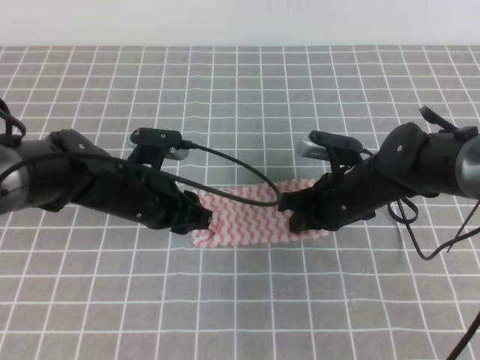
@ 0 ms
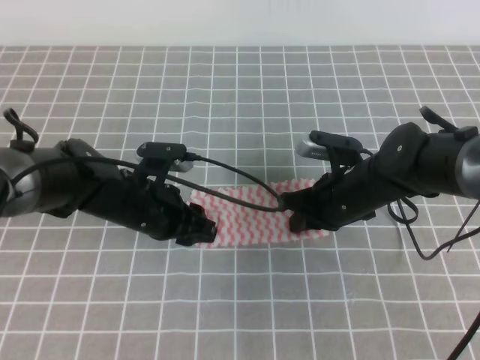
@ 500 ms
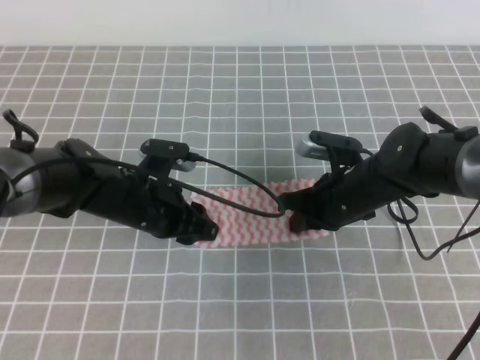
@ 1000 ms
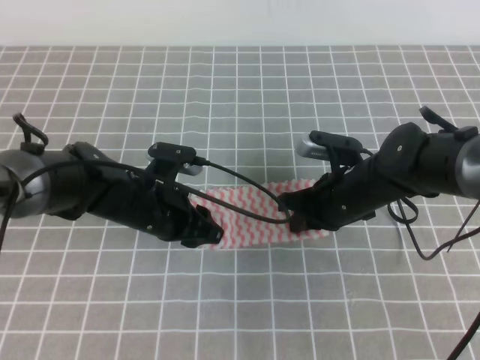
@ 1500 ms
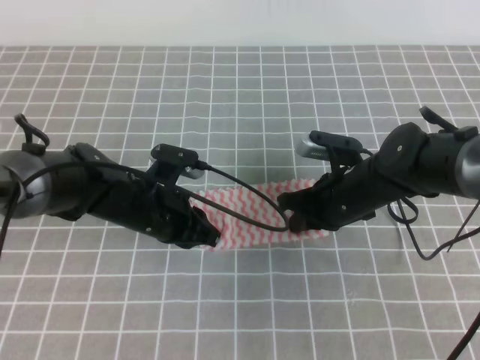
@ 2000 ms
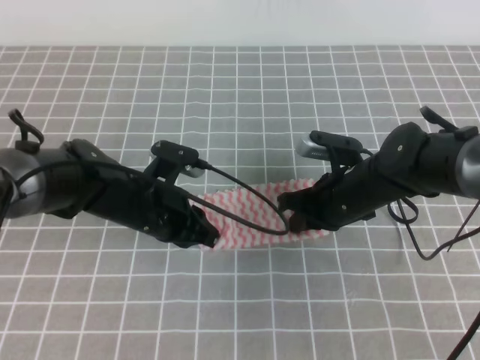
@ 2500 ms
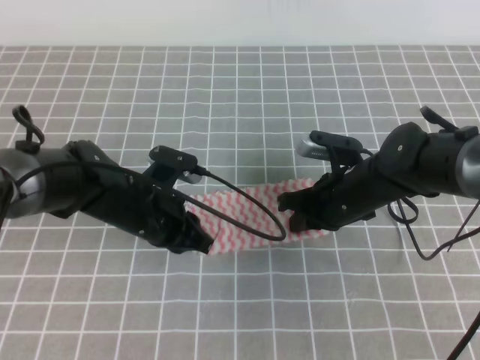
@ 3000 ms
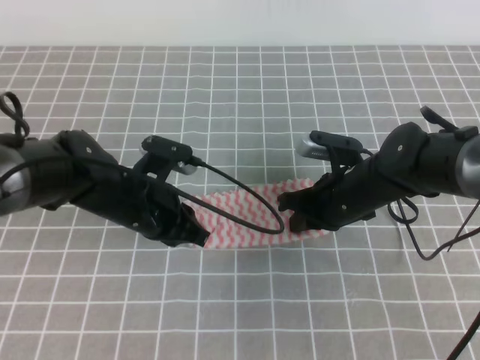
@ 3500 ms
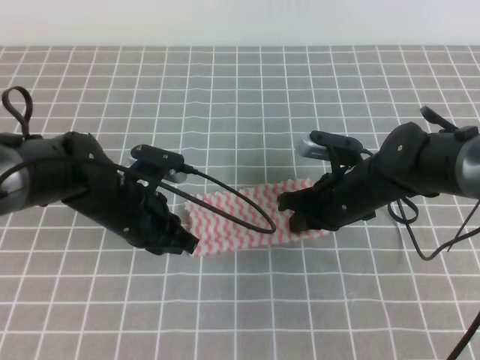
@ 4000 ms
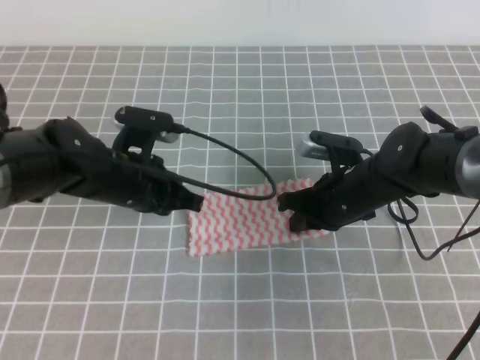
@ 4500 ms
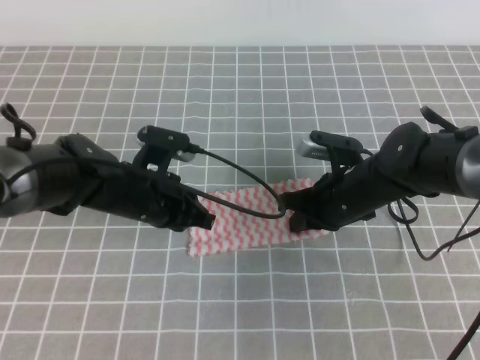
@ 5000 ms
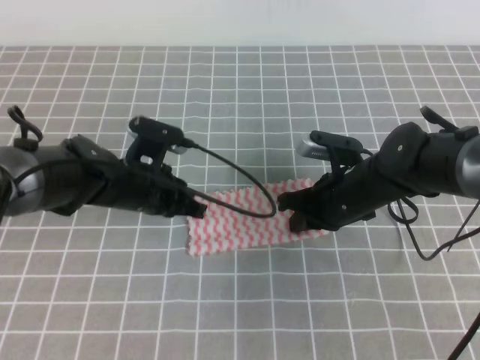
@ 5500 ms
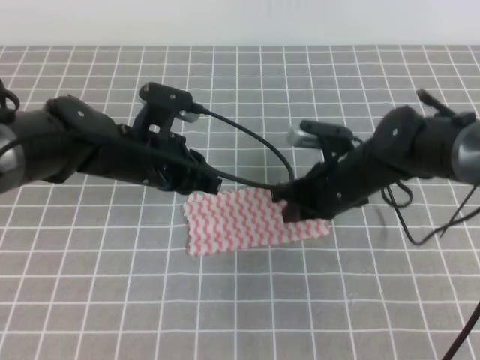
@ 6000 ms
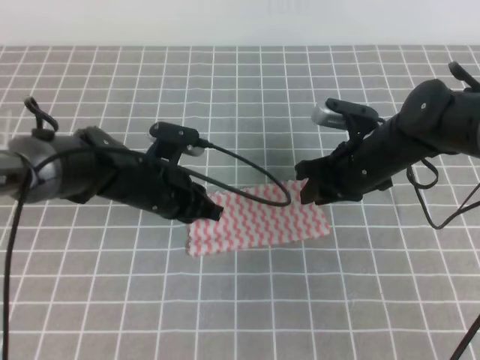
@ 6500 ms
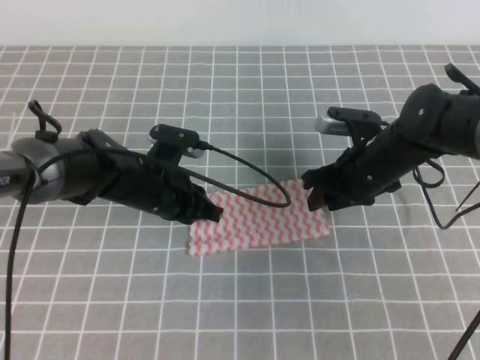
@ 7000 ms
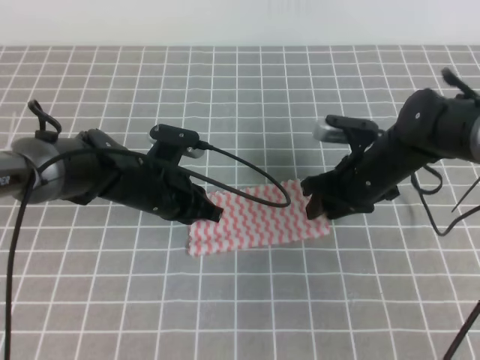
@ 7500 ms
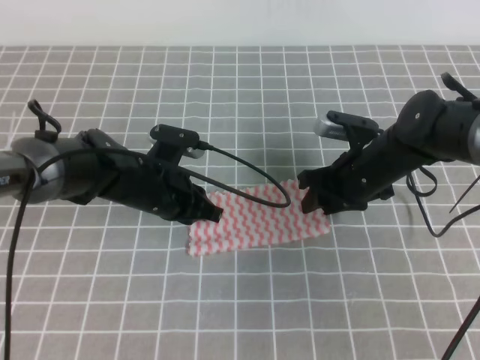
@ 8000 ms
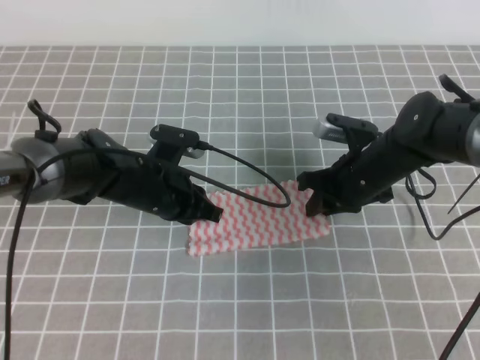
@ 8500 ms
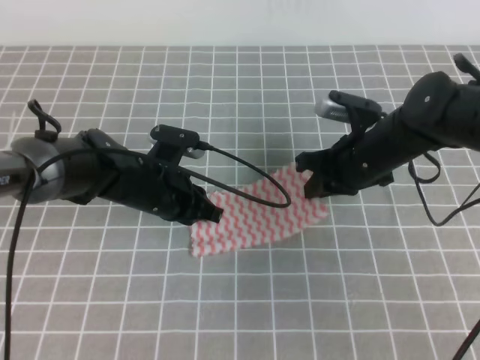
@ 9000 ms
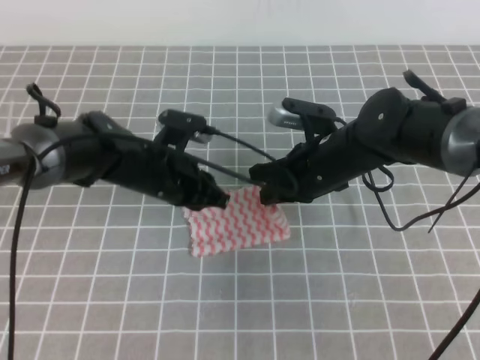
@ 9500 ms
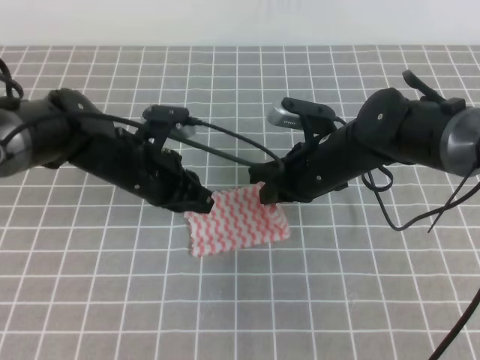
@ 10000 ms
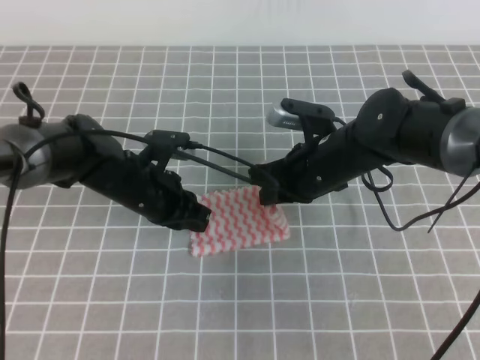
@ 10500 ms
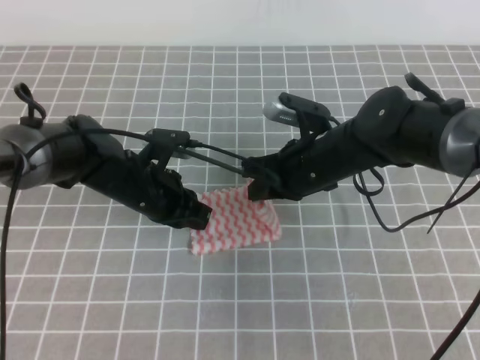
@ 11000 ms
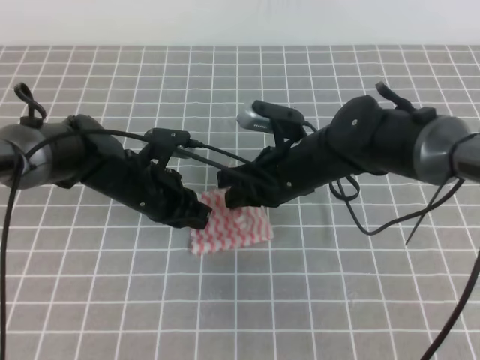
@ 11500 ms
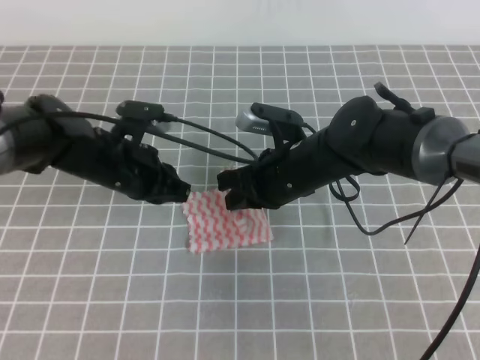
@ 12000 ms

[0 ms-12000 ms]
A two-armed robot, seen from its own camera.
0 ms to 2000 ms: The left gripper closes its fingers.
2000 ms to 4000 ms: The grippers make only small movements.
4000 ms to 6000 ms: The left gripper ends up some 5 cm from where it was.
6000 ms to 8000 ms: The left gripper is displaced downward by approximately 5 cm. The right gripper opens.
8000 ms to 10000 ms: The right gripper goes about 5 cm to the left, and closes up.
10000 ms to 12000 ms: There are only small adjustments of the grippers.

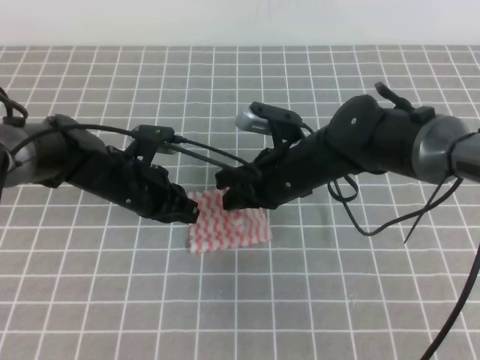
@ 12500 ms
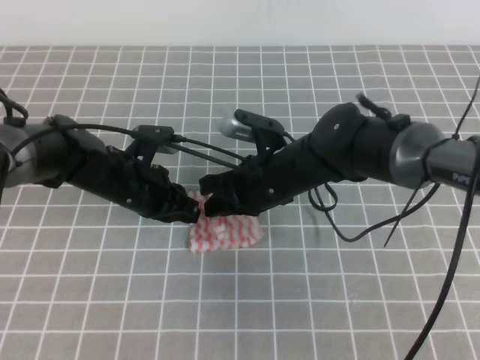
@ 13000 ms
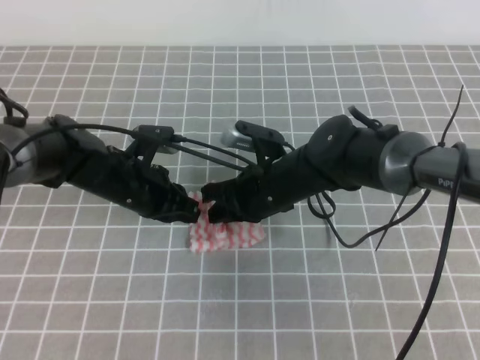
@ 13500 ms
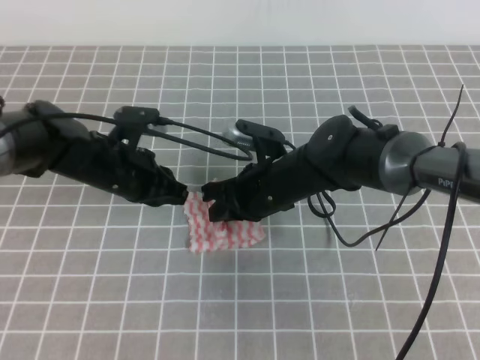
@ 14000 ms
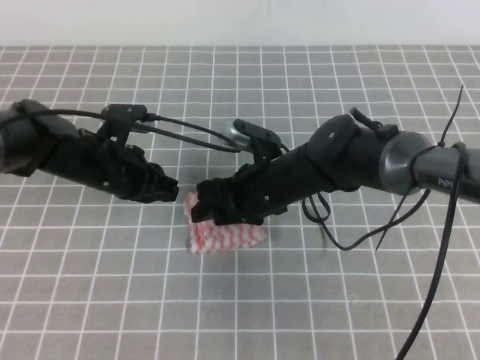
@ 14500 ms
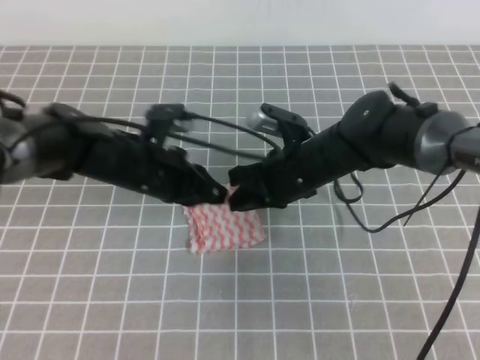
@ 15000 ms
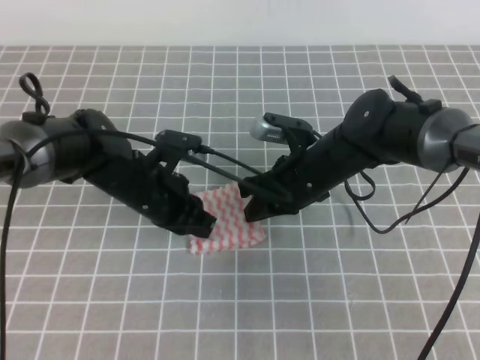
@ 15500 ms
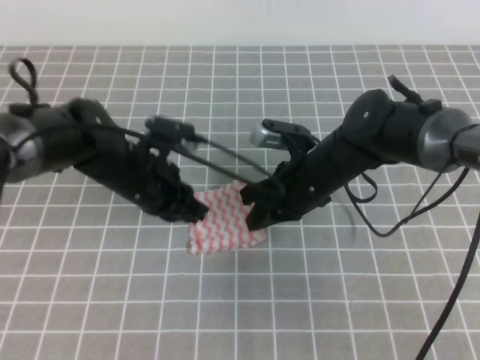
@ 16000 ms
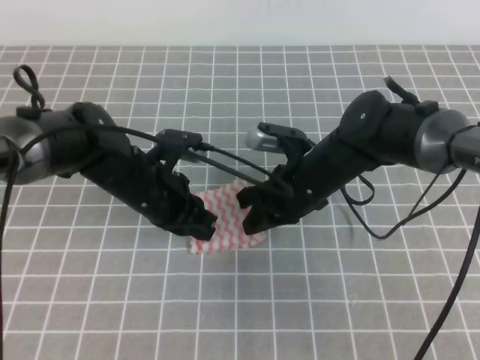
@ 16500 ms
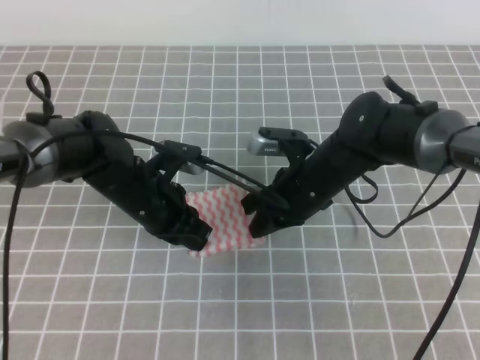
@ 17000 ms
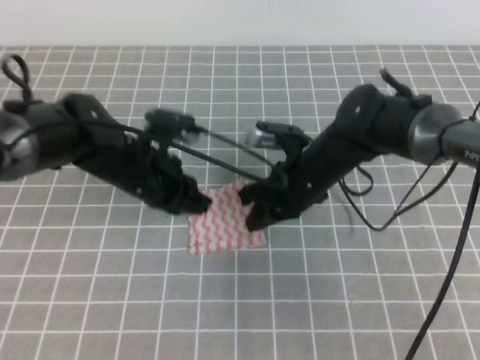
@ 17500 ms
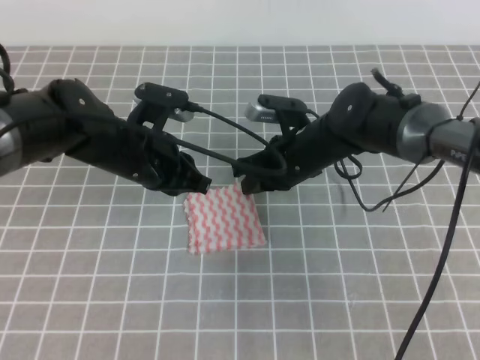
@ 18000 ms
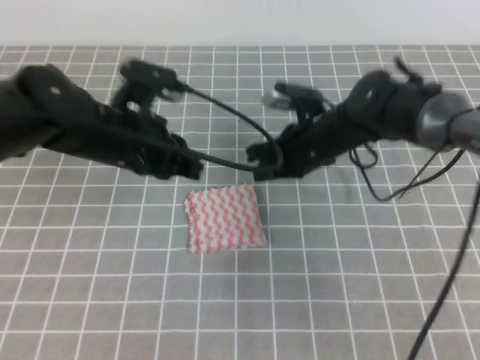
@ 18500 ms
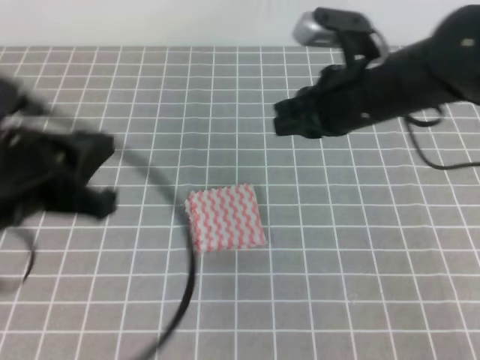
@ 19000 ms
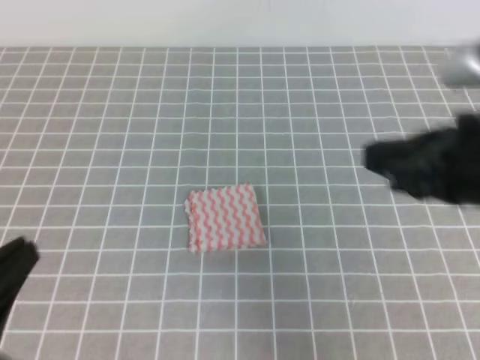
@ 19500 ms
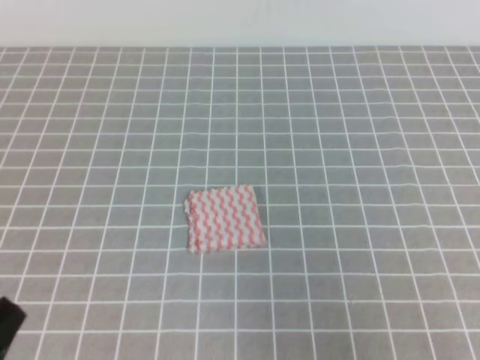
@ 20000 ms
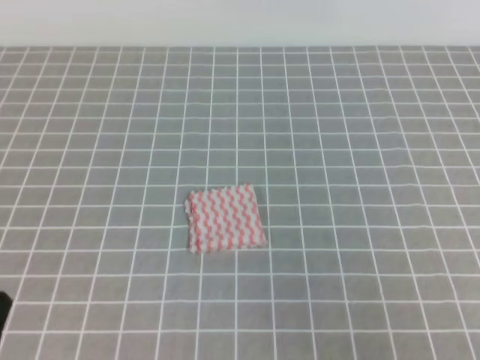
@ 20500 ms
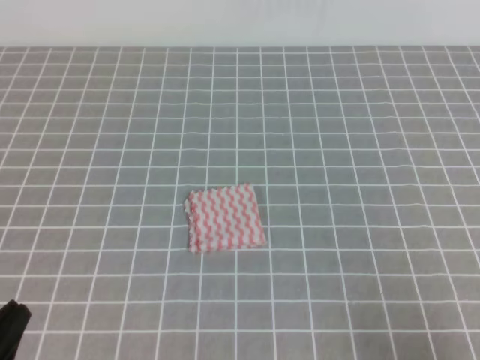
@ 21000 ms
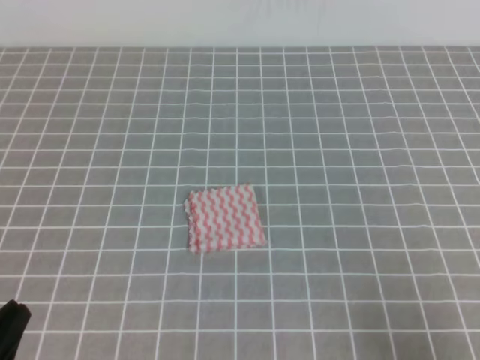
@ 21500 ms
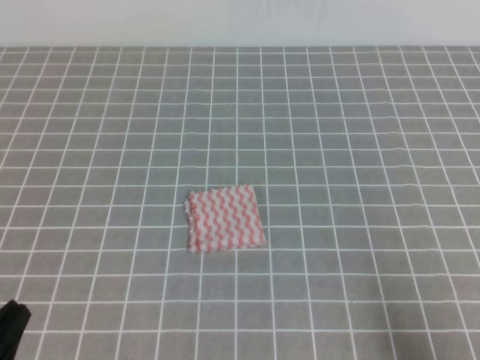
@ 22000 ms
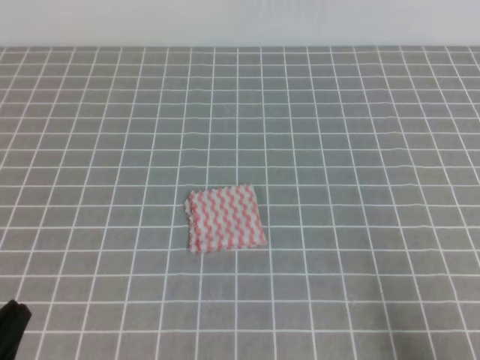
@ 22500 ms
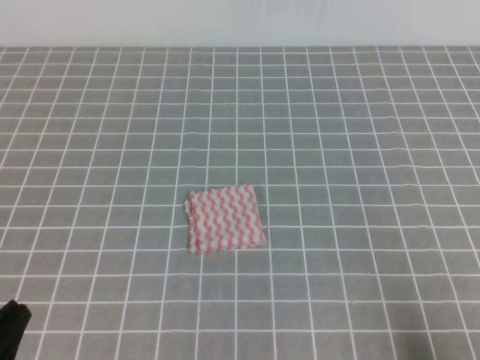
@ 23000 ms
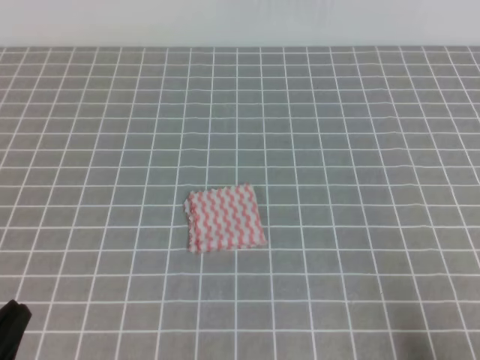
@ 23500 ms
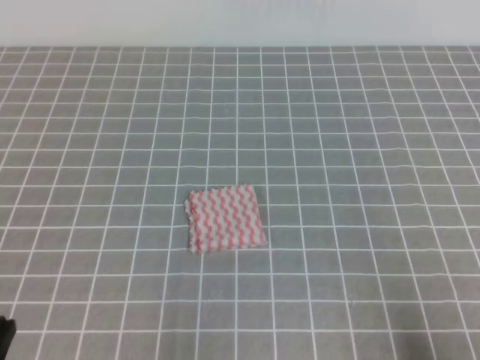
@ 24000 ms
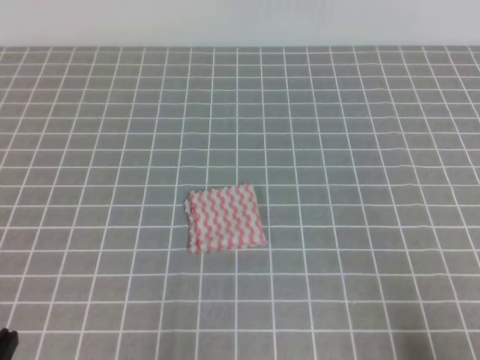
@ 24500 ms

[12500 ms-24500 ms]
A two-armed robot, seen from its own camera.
Step, 12500 ms to 24500 ms: Fold the towel.
12500 ms to 14500 ms: The right gripper opens.
14500 ms to 16500 ms: The left gripper goes about 5 cm to the right. Meanwhile the right gripper closes up.
16500 ms to 18500 ms: The right gripper ends up approximately 5 cm from where it was, while the left gripper heads upward, covering roughly 10 cm.
18500 ms to 20500 ms: The left gripper shifts approximately 30 cm backward and to the left. The right gripper shifts about 40 cm backward and to the right.
20500 ms to 22500 ms: The right gripper is displaced downward by about 5 cm.

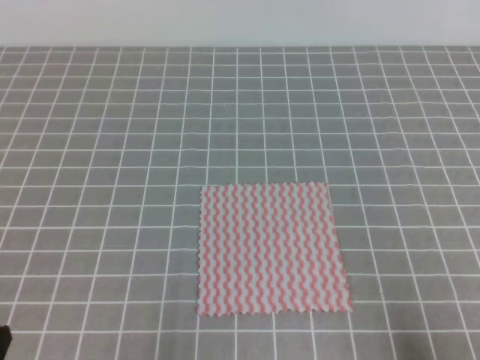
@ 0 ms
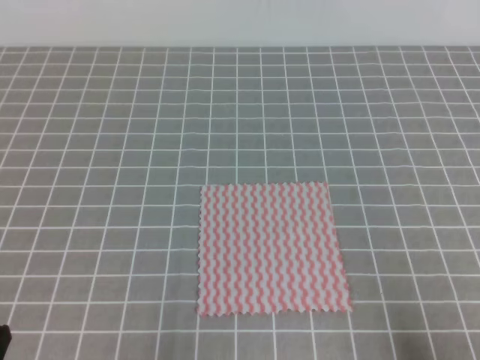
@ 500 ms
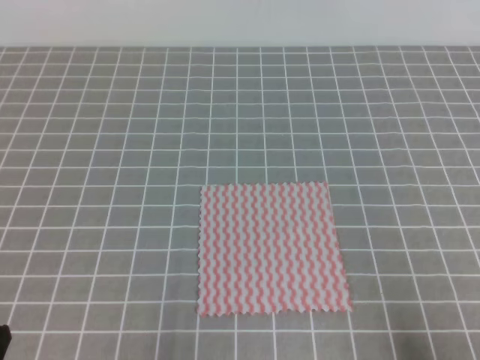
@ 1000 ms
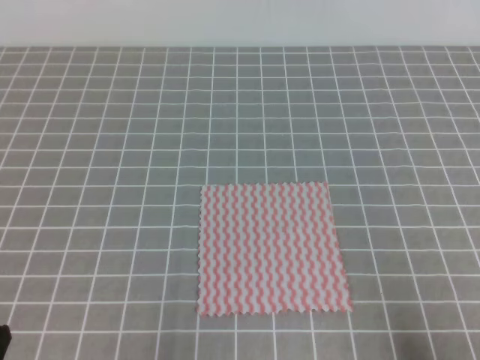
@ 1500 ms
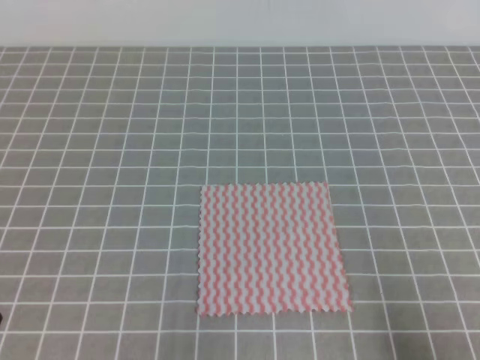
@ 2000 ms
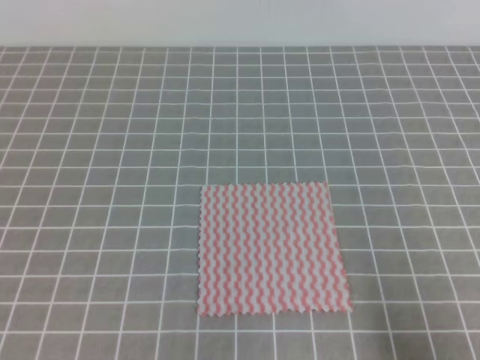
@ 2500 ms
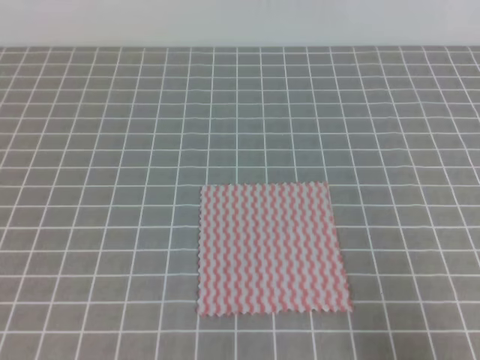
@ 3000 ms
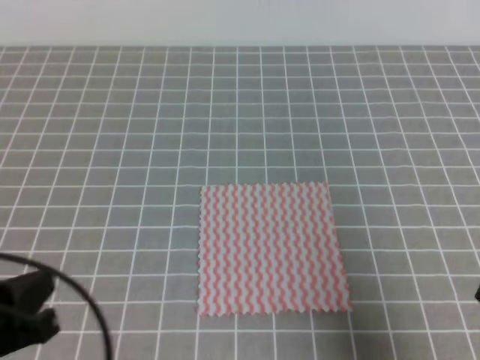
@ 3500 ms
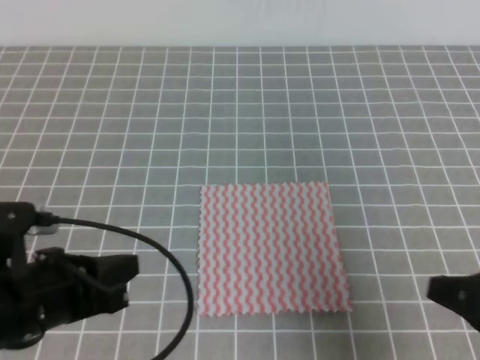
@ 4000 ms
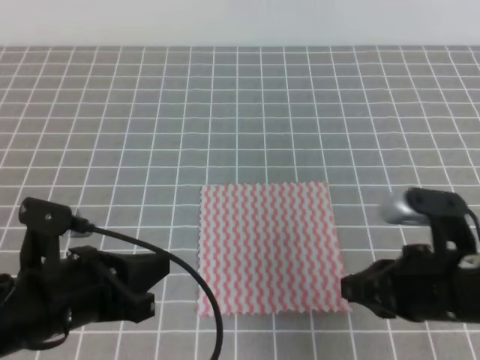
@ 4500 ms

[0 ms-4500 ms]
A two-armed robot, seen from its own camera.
2000 ms to 4500 ms: The left gripper moves forward and to the right, approximately 15 cm; the right gripper goes approximately 15 cm forward and to the left.
